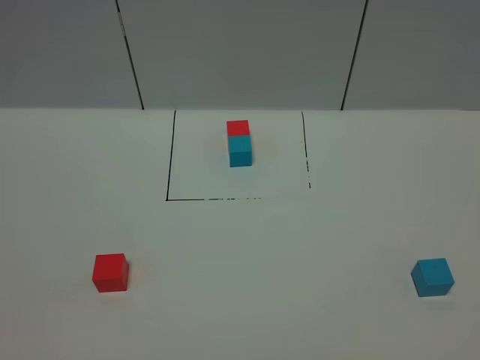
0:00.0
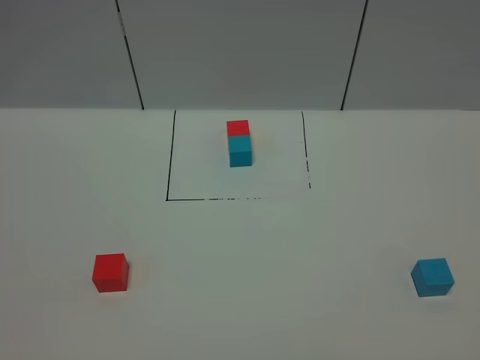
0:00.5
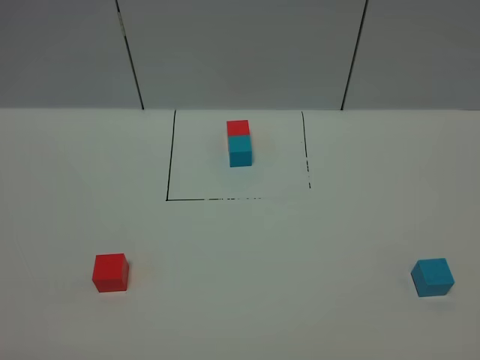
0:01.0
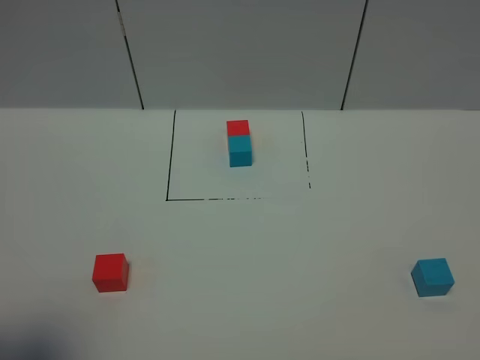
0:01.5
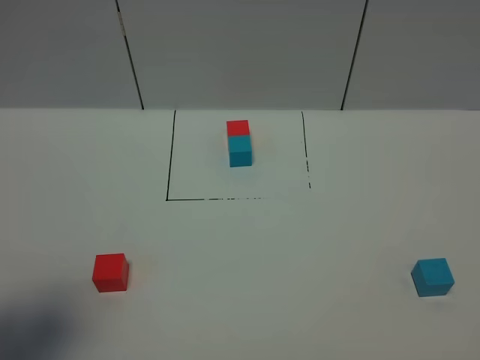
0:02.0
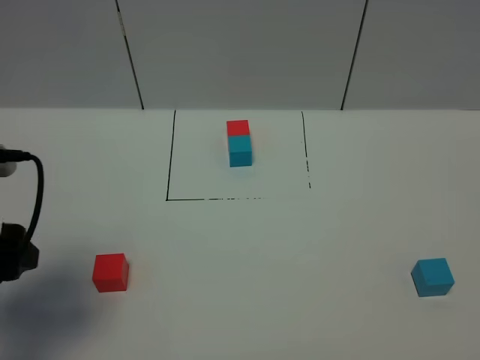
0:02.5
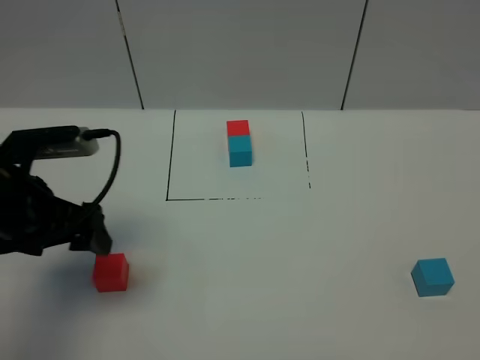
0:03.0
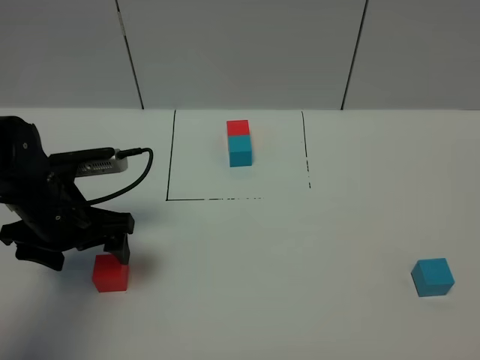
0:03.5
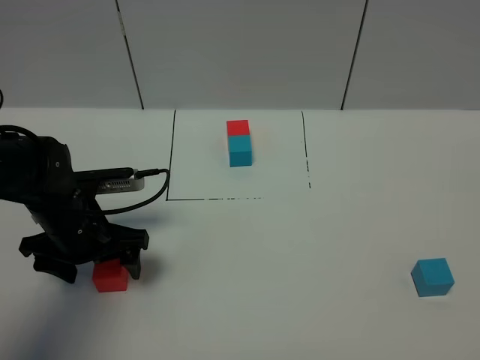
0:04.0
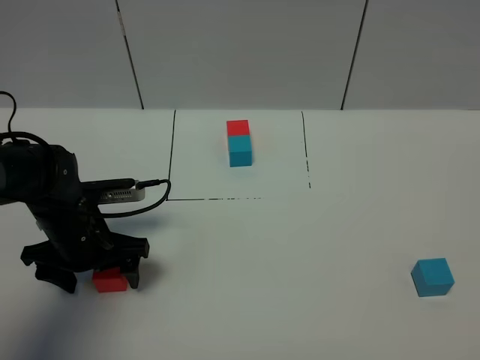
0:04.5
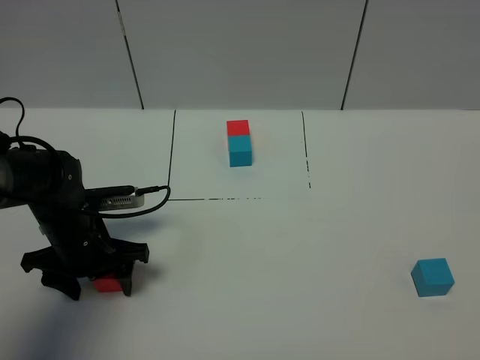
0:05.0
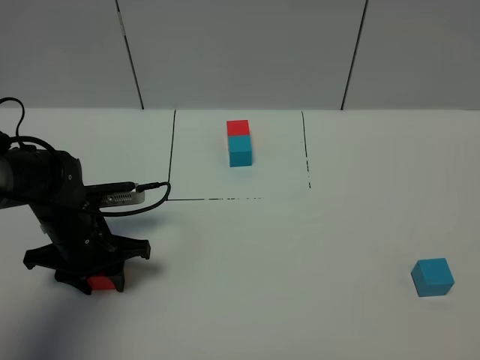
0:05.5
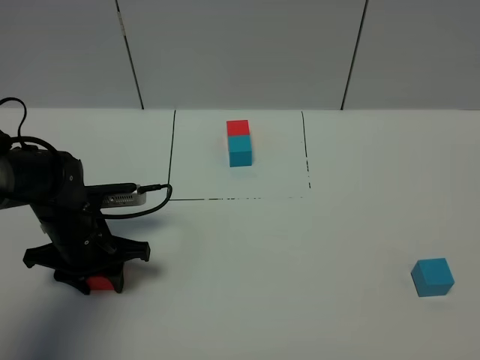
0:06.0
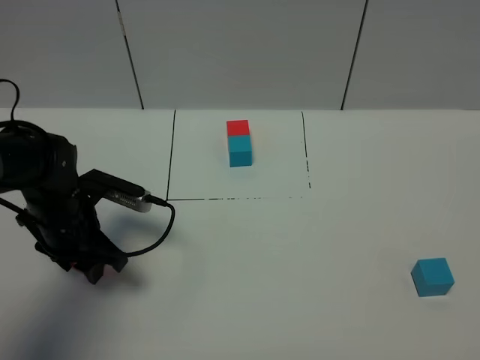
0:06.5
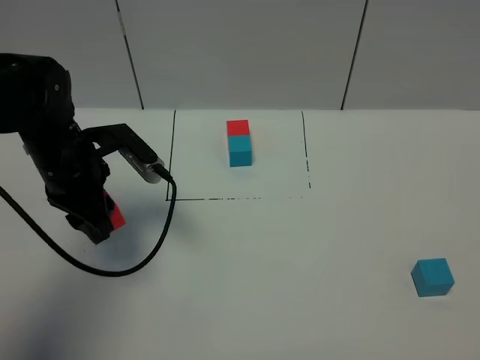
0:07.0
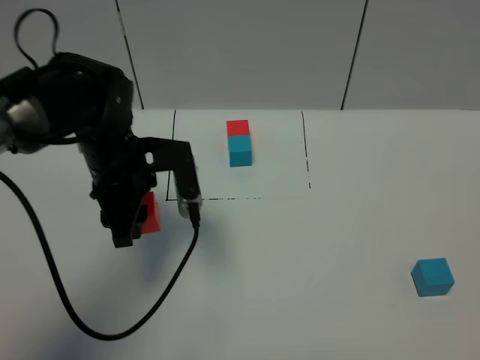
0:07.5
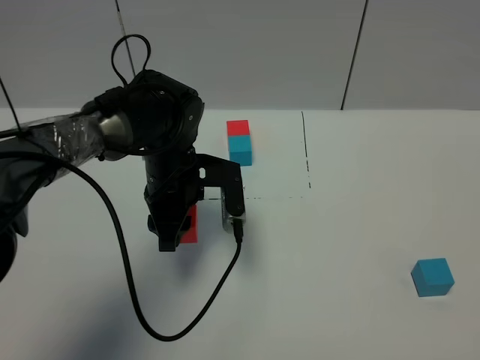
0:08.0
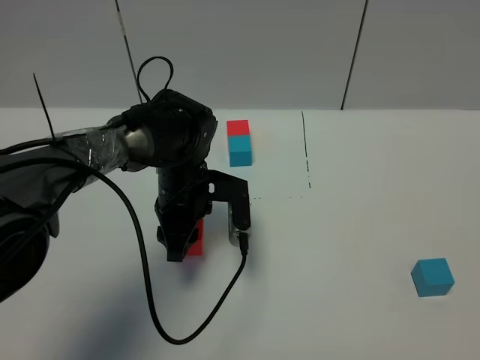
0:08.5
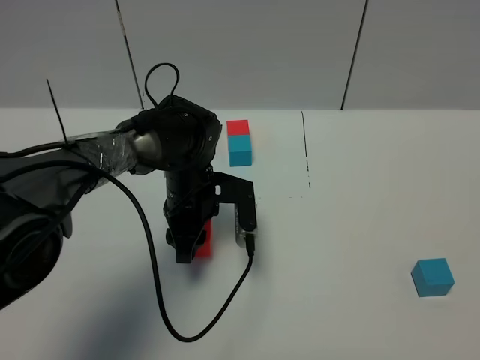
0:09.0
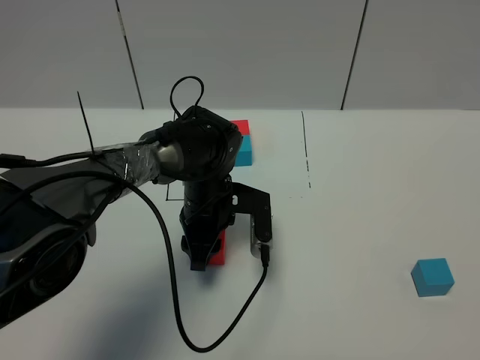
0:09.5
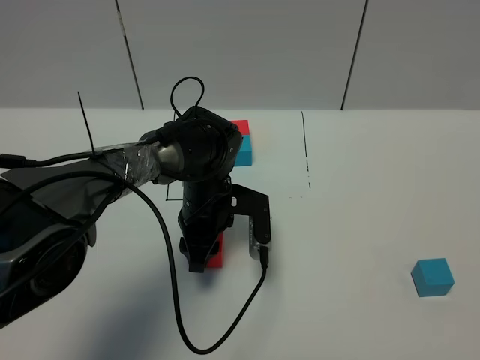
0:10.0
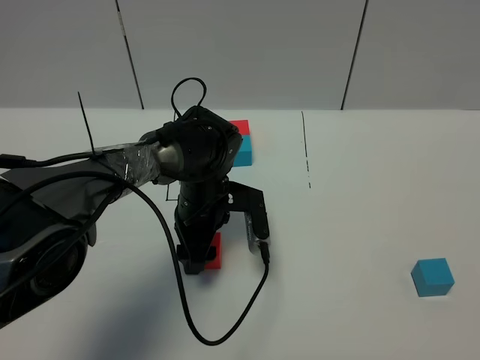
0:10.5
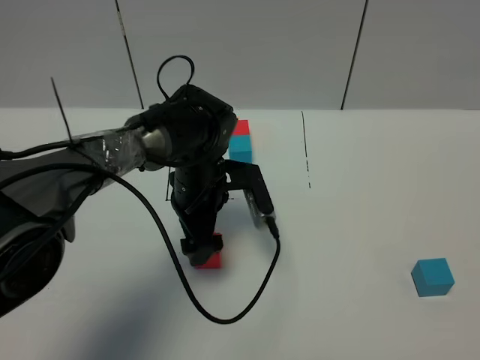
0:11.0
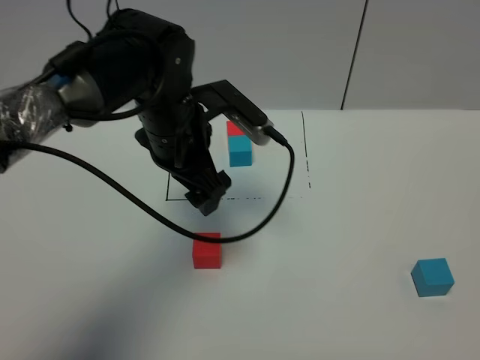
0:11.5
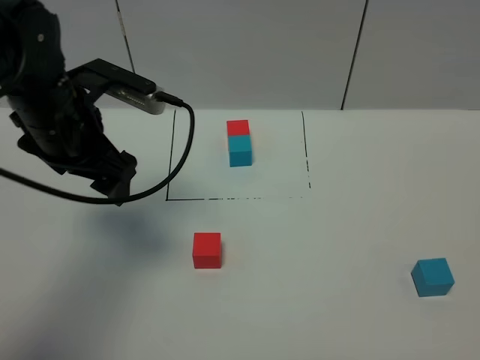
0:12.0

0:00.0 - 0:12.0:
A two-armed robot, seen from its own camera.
Task of the whole recording: According to the building block template in front, assemble the scattered blocks together.
Step, 0:02.5 - 0:11.0: Put the red cube in the center of the table.
0:00.0 - 0:02.0: The left gripper goes approximately 15 cm forward.
0:02.0 - 0:04.0: The left gripper heads forward, downward and to the right, covering about 25 cm.
0:04.0 - 0:06.0: The left gripper closes its fingers.
0:06.0 - 0:08.0: The left gripper moves to the right, upward and forward, about 15 cm.
0:08.0 - 0:10.0: The left gripper moves downward, some 5 cm.
0:10.0 - 0:12.0: The left gripper travels upward and to the left by about 25 cm, and opens its fingers.

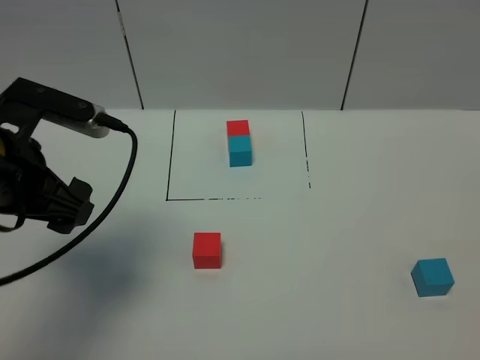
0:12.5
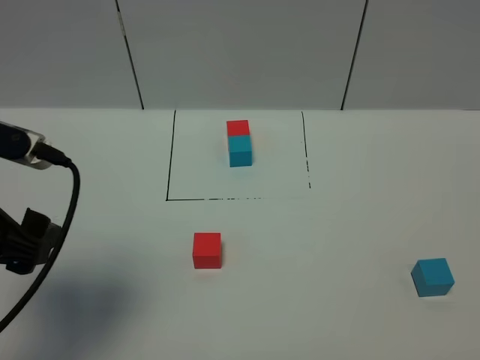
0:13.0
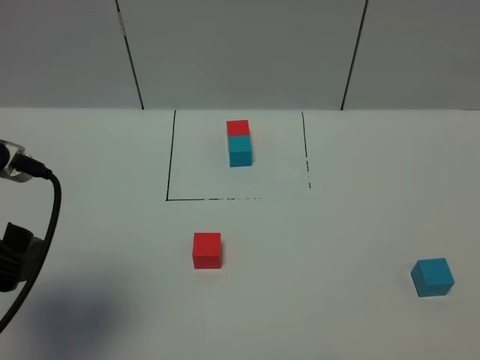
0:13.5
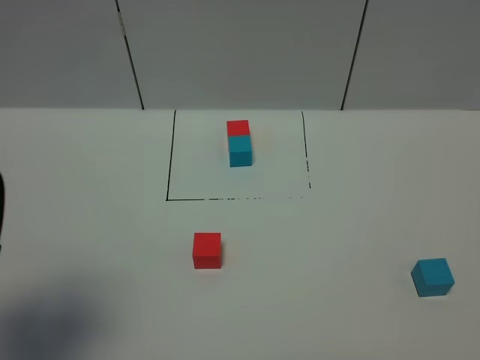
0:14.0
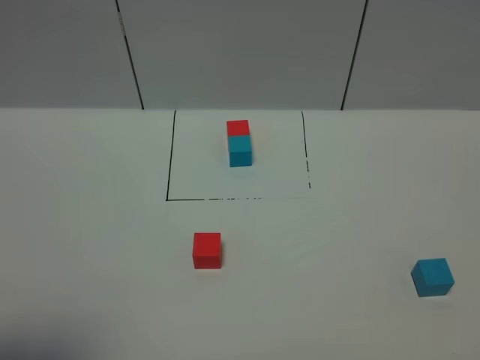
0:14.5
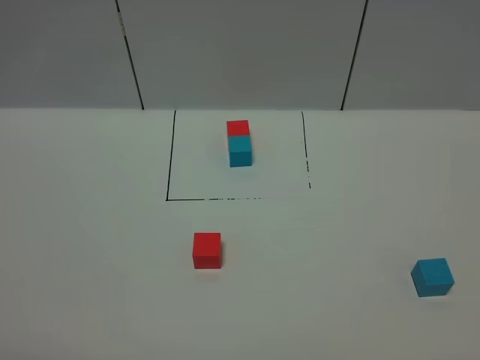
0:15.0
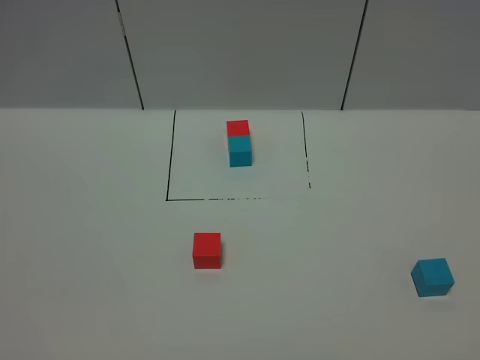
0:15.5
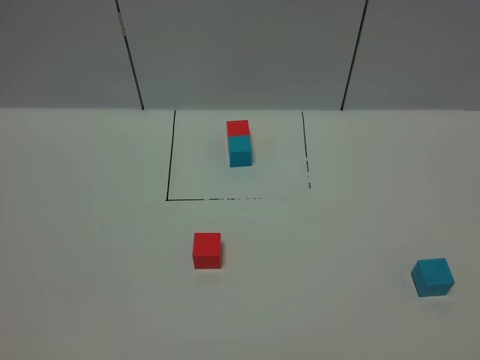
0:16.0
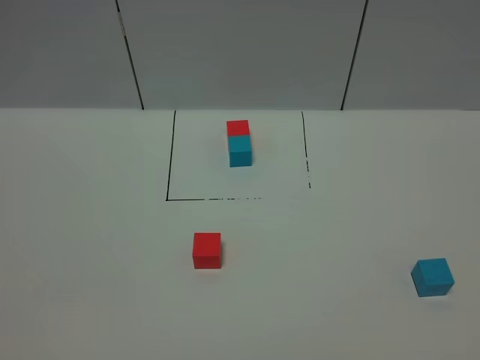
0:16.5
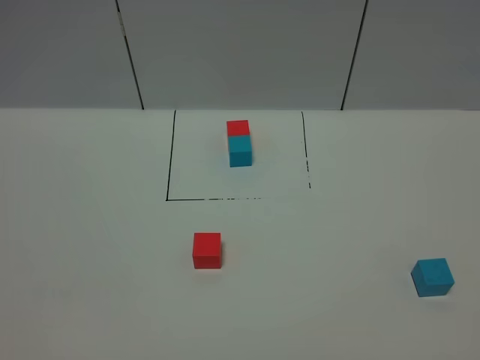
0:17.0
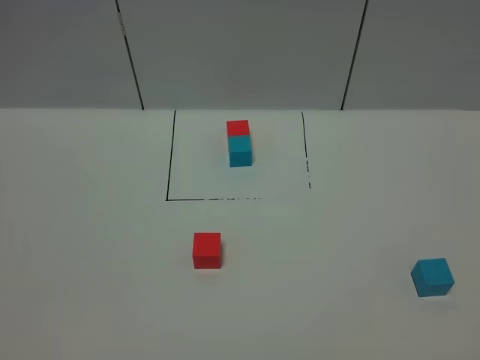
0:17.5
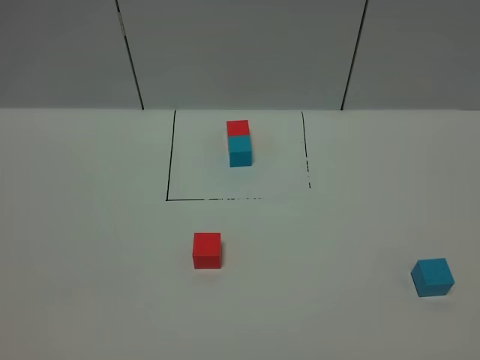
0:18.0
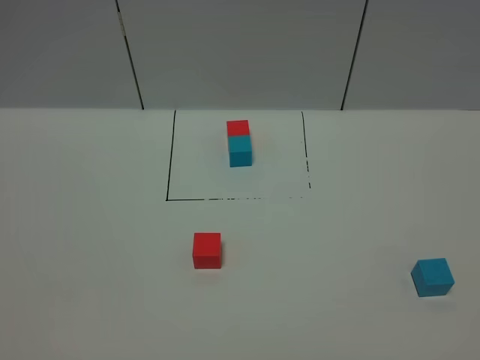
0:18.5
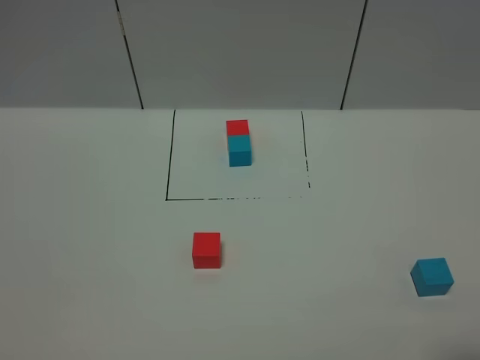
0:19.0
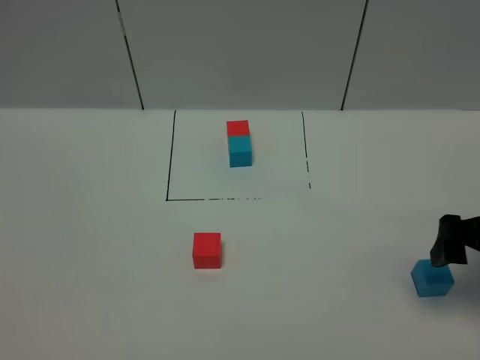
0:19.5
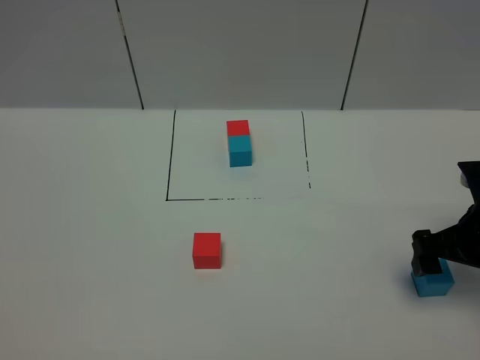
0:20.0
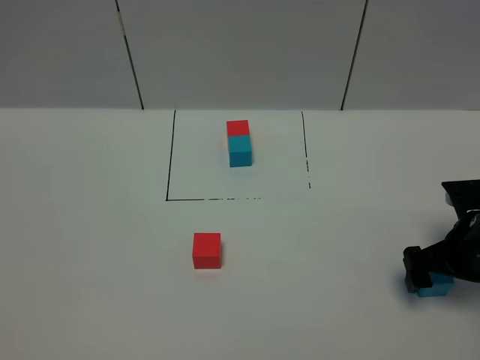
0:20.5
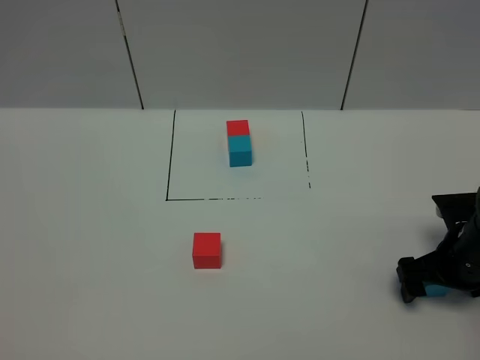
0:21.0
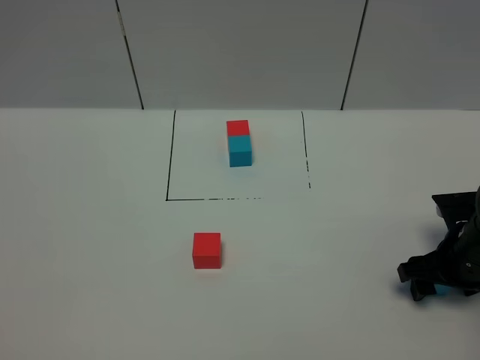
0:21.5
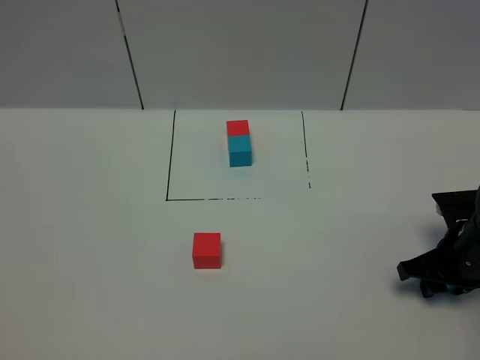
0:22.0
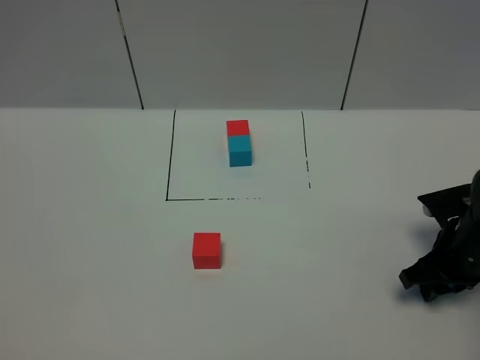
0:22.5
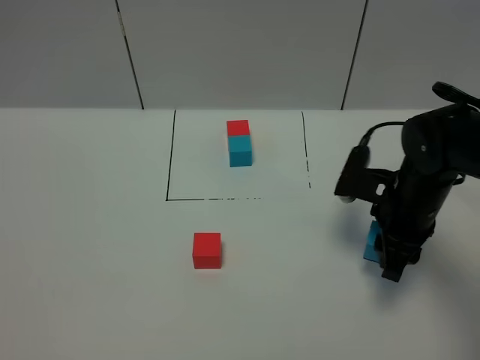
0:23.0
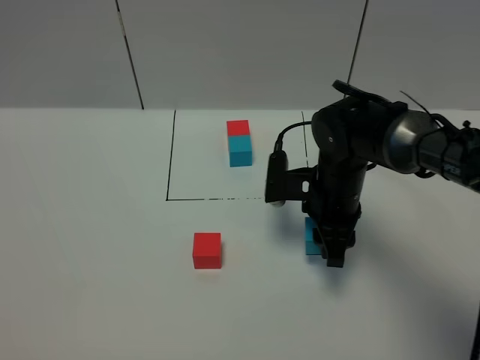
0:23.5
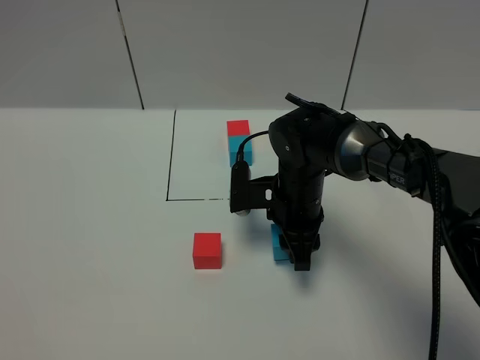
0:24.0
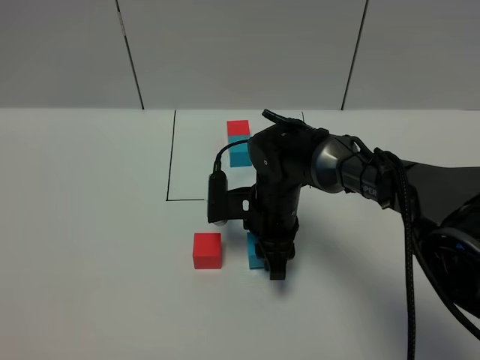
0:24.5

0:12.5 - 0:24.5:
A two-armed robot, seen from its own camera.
Task of the whole recording: According to the building block template in front, assemble the scattered blocks together.
0:12.5 - 0:14.5: The left gripper shifts some 15 cm backward.
0:14.5 - 0:16.5: The left gripper moves backward, about 10 cm.
0:16.5 - 0:18.5: Both grippers stay about where they are.
0:18.5 - 0:20.5: The right gripper shifts roughly 35 cm forward and downward.
0:20.5 - 0:22.5: The right gripper closes up.
0:22.5 - 0:24.5: The right gripper is displaced to the left by about 25 cm.

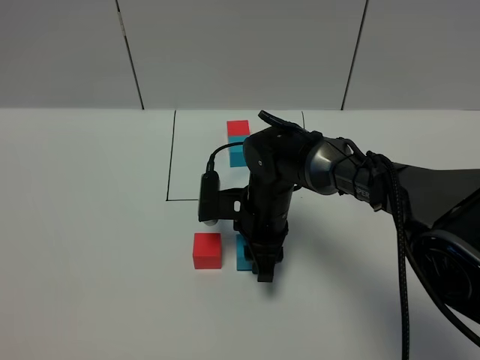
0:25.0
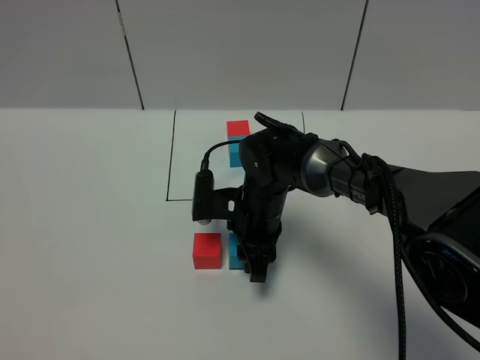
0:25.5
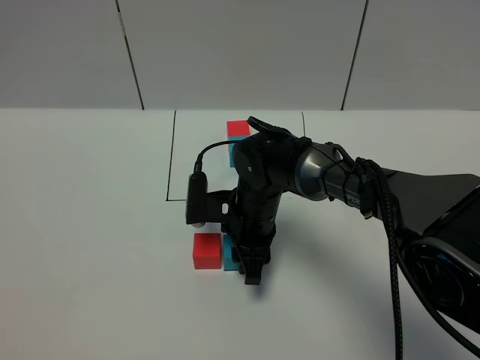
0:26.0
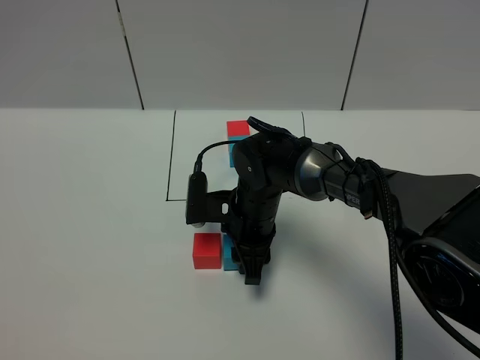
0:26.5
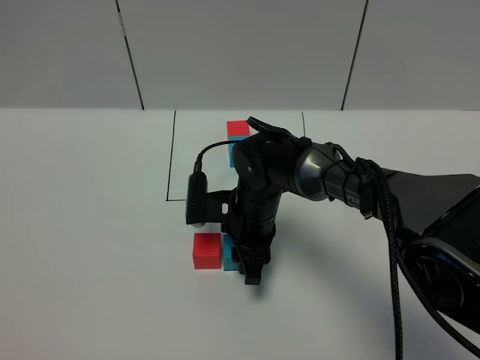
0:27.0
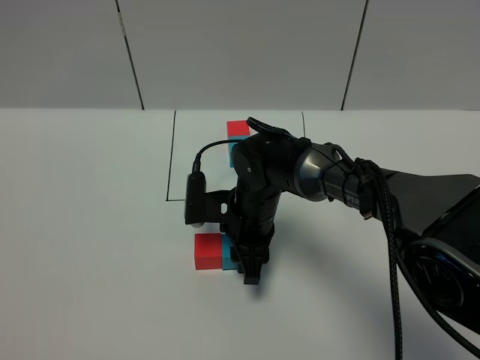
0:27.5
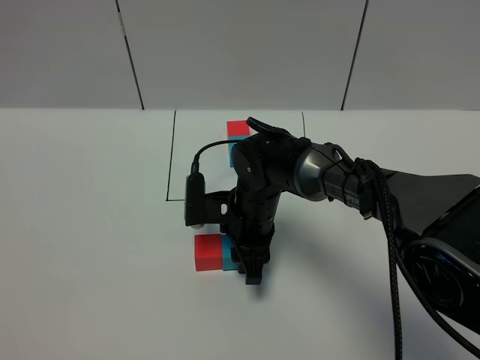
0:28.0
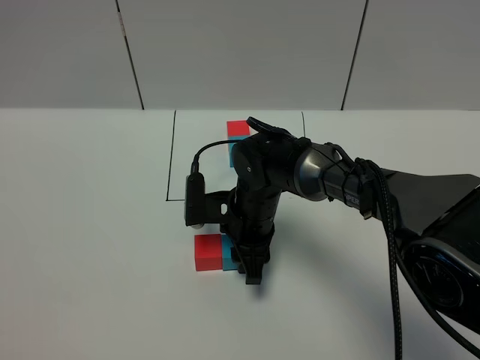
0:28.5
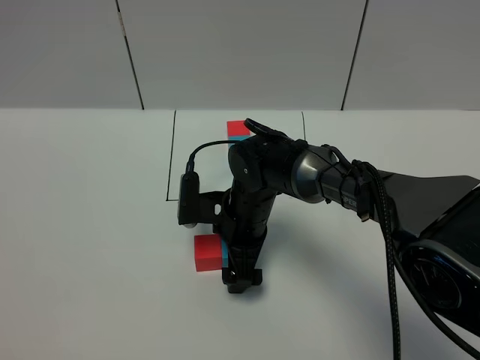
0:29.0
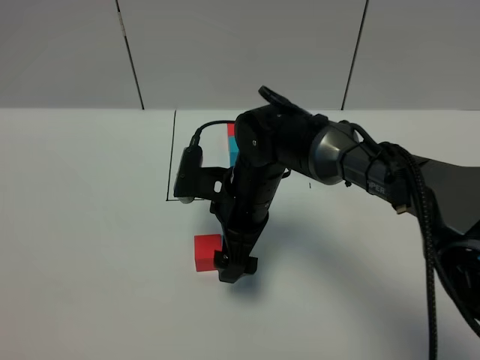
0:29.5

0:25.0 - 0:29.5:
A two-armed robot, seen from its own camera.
Task of the whole recording: According to the building block template in front, assemble the scattered blocks together.
0:25.0 - 0:27.0: The grippers make only small movements.
0:27.0 - 0:29.5: The right gripper shifts roughly 5 cm upward, and opens.
